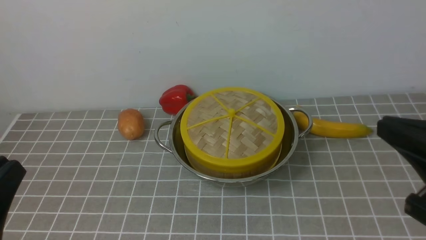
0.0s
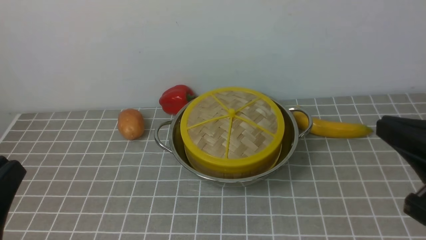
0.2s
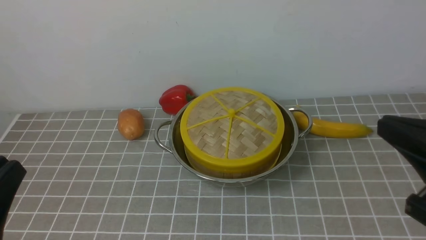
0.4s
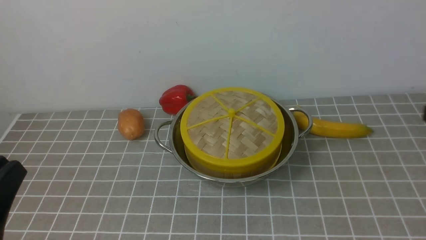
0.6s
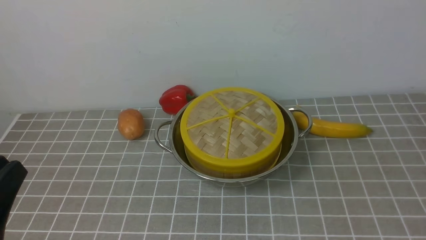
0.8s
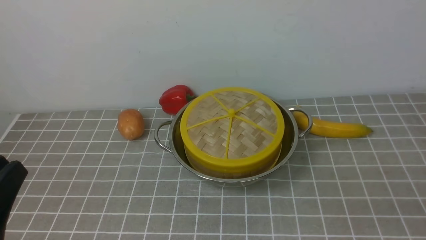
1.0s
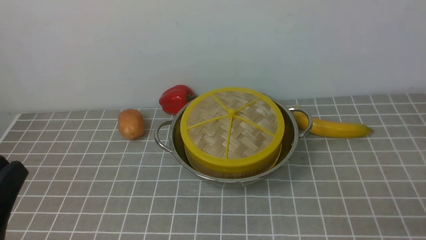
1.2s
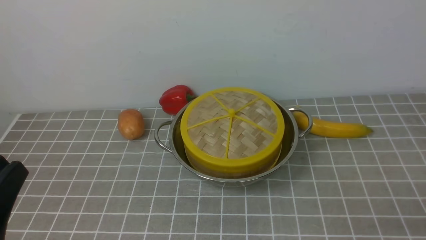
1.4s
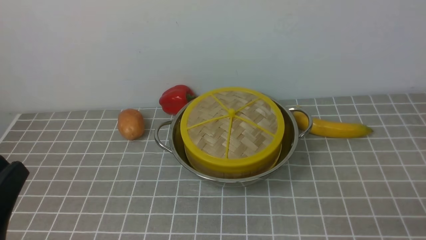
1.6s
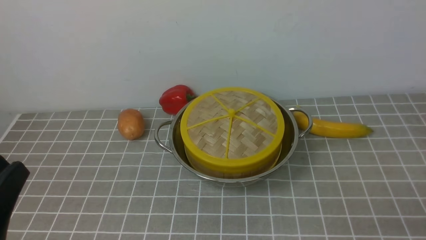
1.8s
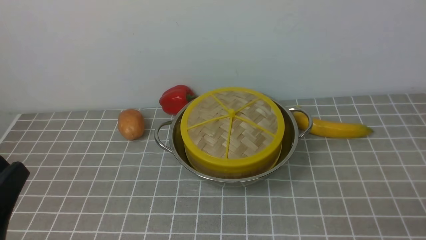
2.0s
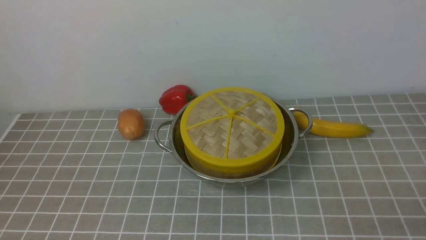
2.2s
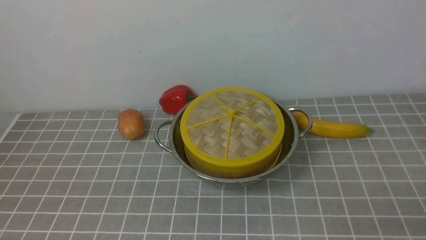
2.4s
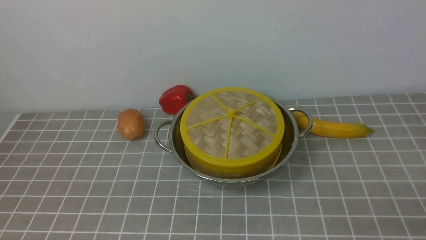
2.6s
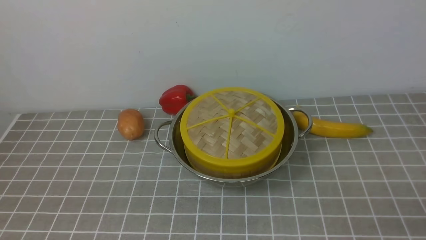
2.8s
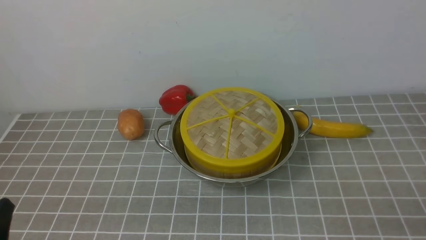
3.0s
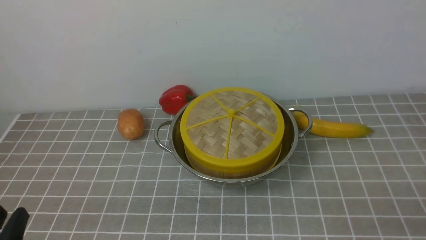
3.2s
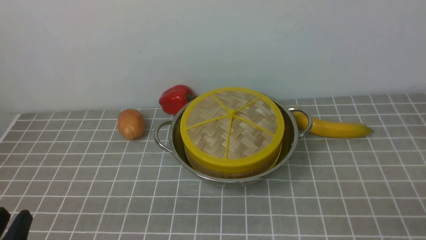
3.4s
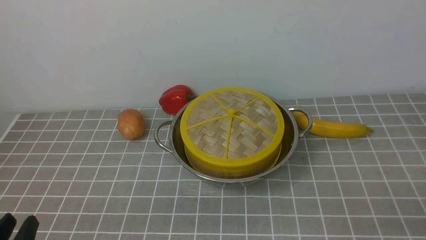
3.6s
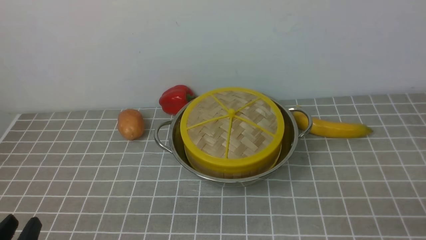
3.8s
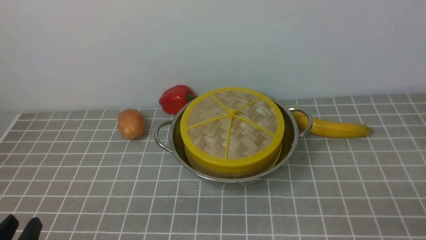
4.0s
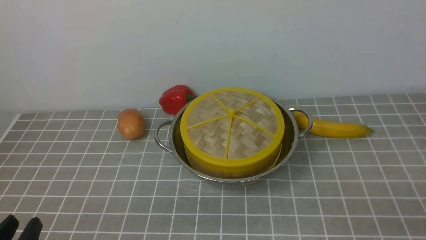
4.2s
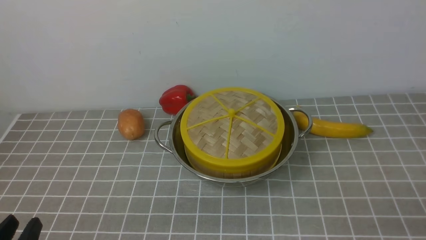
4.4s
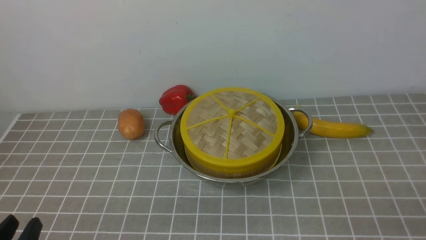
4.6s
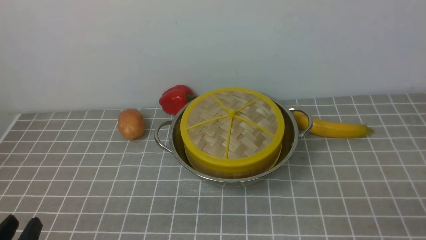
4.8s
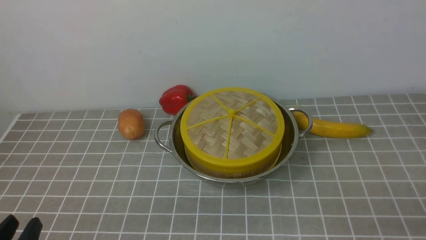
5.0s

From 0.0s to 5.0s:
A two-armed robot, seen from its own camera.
Task of the whole recording: place the steamer in the pot on the grey tablecloth, and put the lid on the steamer.
From 0.0s to 1.6s: The right gripper goes some 15 cm downward, to the right and backward.
From 1.6s to 3.4s: The left gripper travels downward by roughly 10 cm.

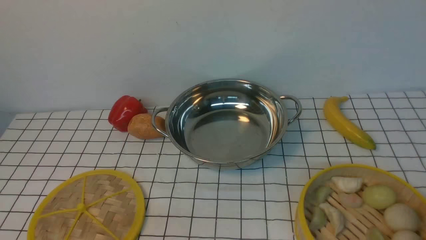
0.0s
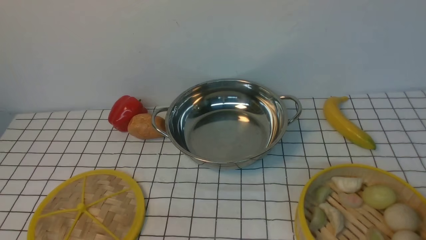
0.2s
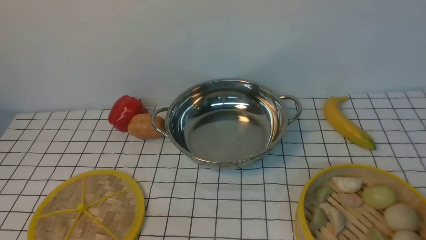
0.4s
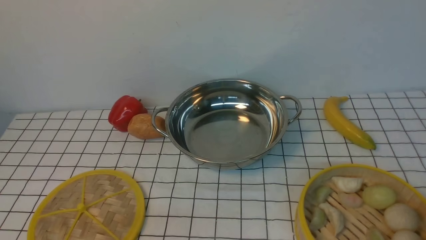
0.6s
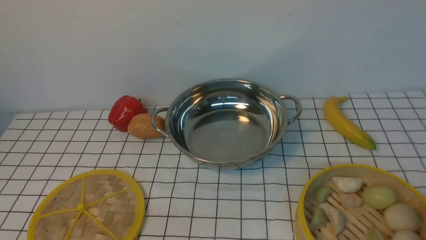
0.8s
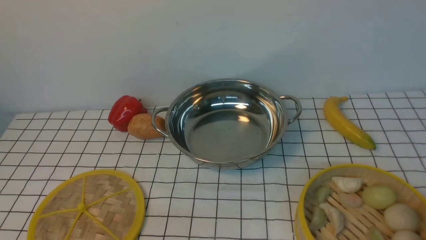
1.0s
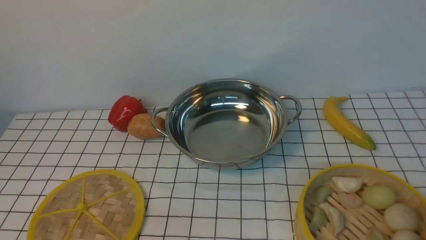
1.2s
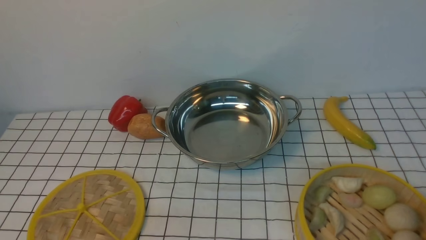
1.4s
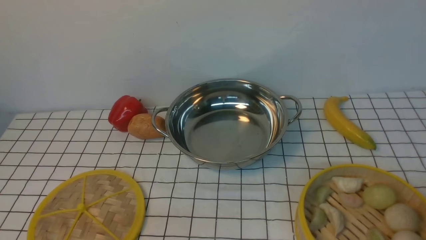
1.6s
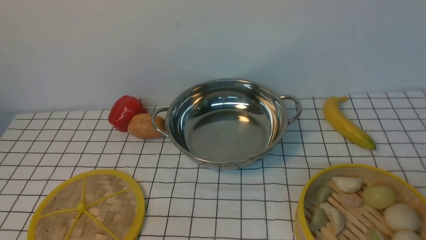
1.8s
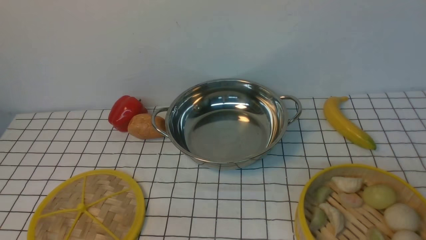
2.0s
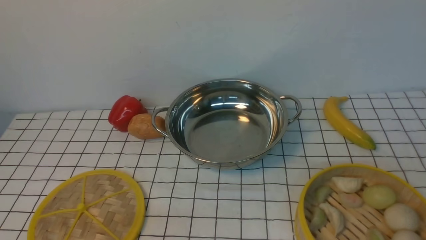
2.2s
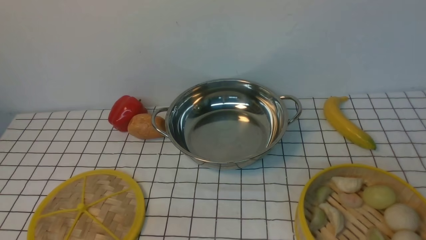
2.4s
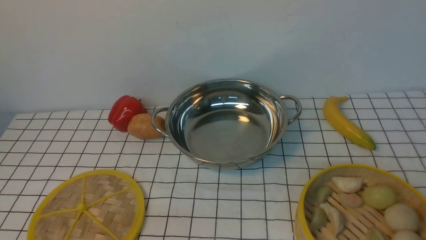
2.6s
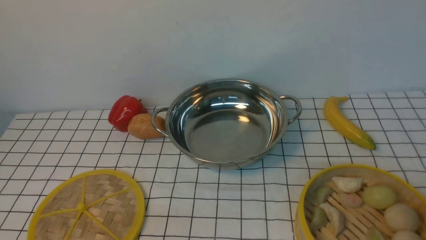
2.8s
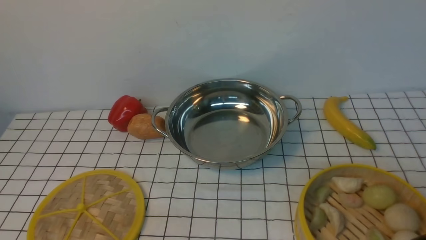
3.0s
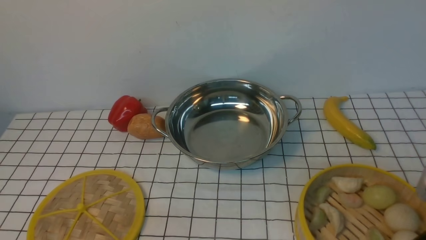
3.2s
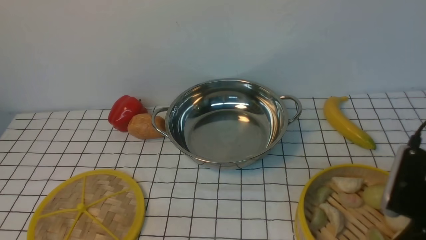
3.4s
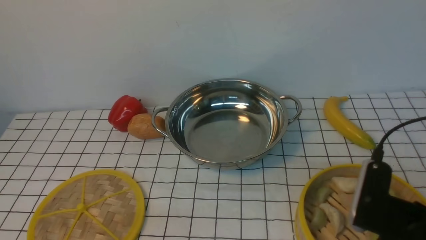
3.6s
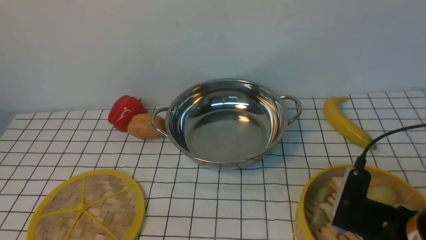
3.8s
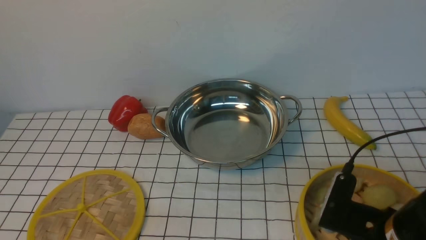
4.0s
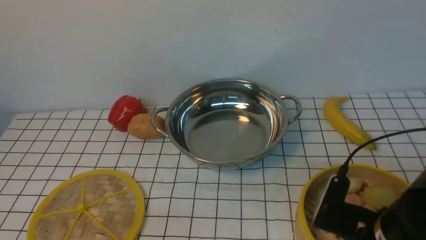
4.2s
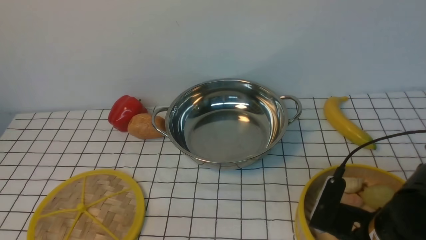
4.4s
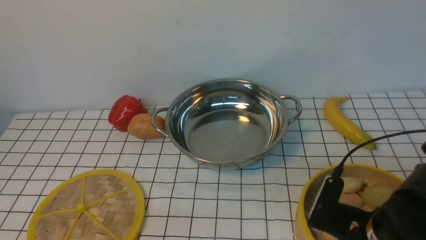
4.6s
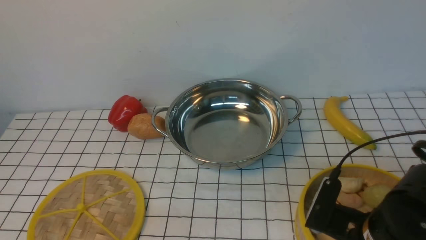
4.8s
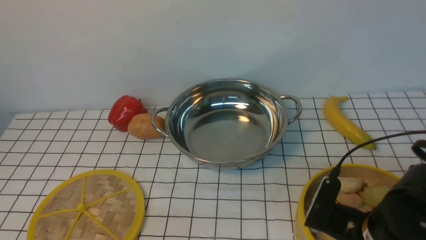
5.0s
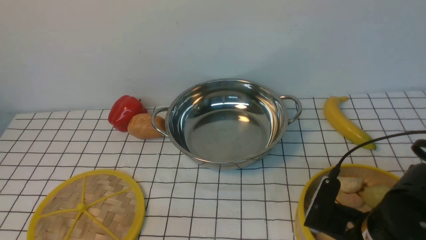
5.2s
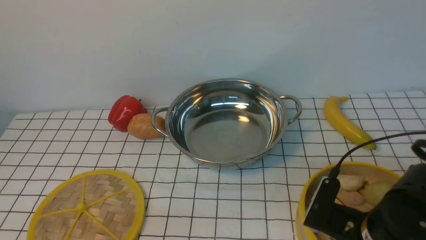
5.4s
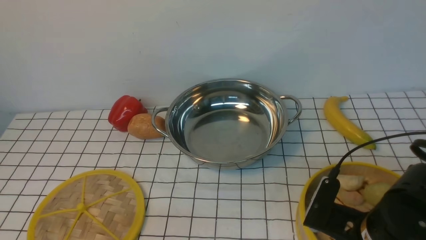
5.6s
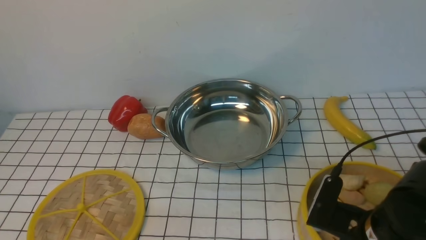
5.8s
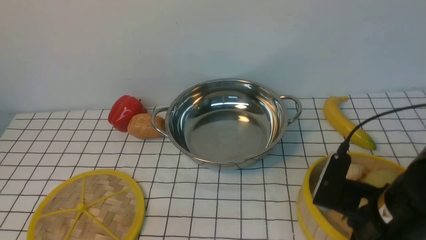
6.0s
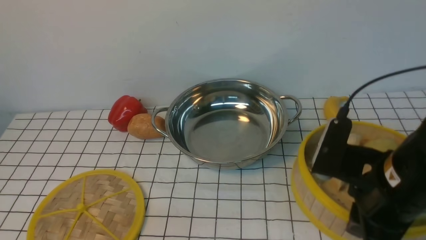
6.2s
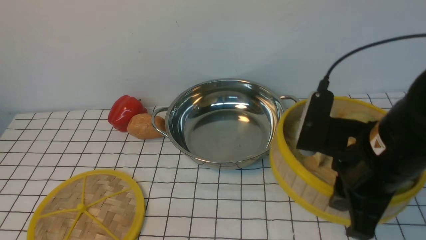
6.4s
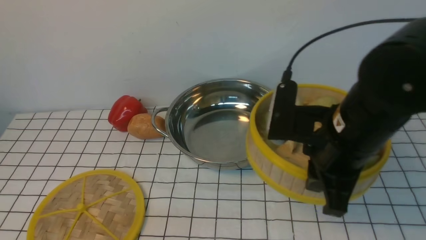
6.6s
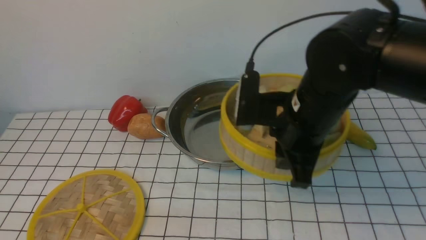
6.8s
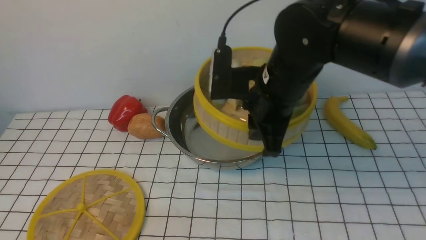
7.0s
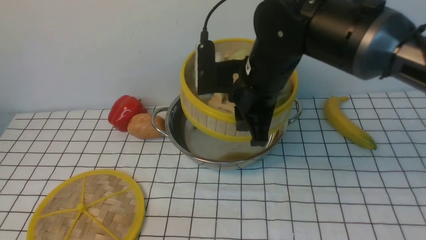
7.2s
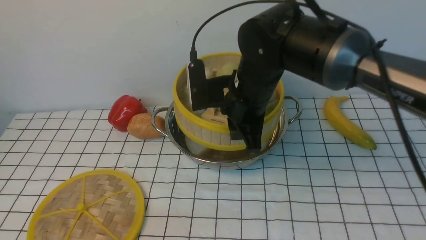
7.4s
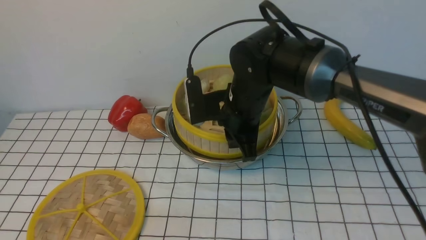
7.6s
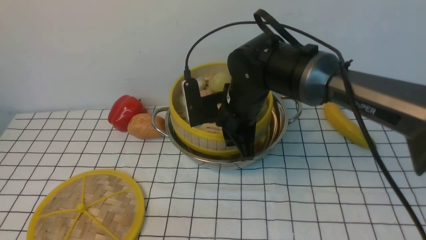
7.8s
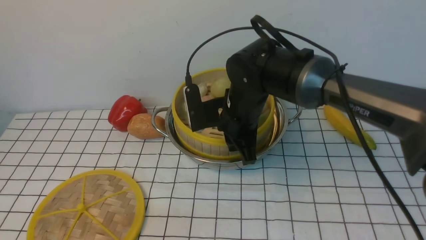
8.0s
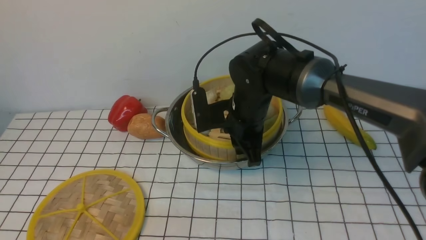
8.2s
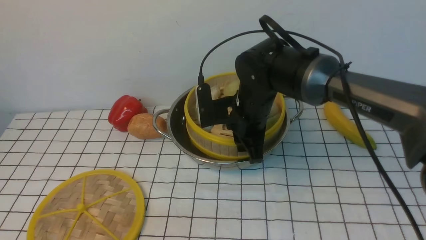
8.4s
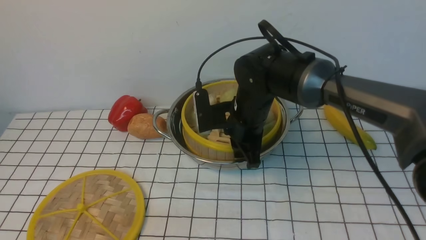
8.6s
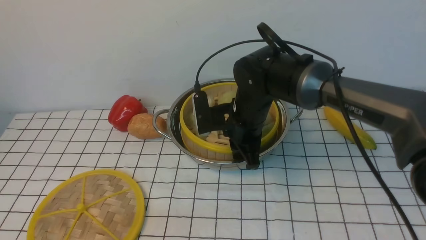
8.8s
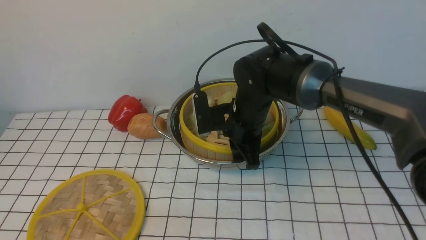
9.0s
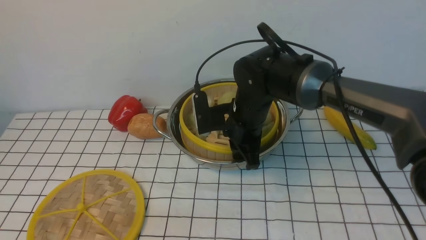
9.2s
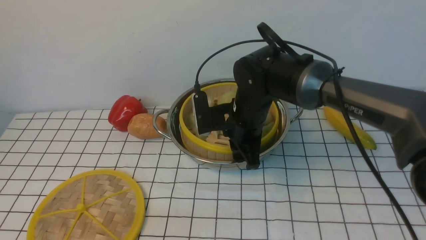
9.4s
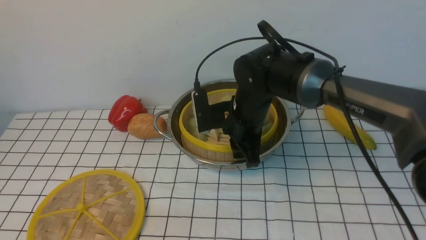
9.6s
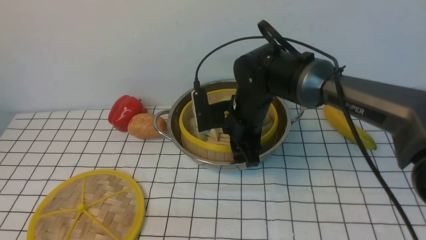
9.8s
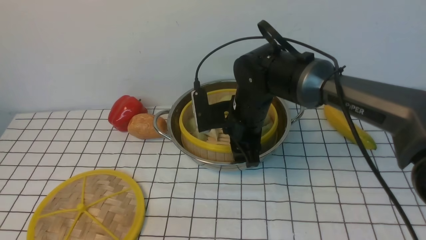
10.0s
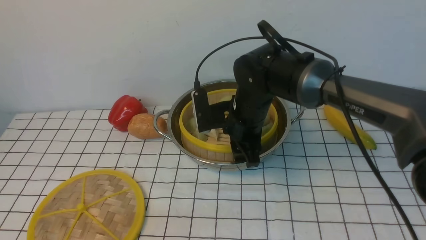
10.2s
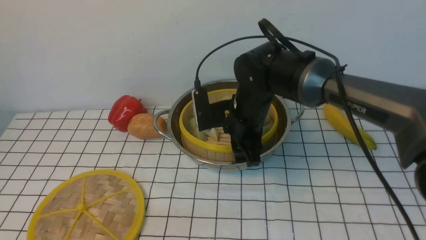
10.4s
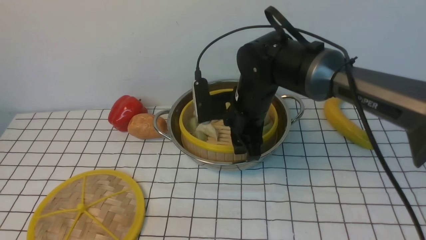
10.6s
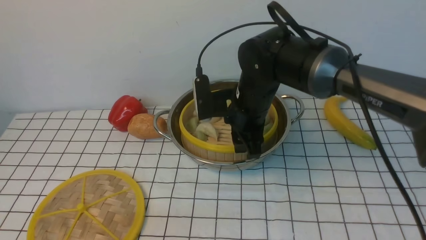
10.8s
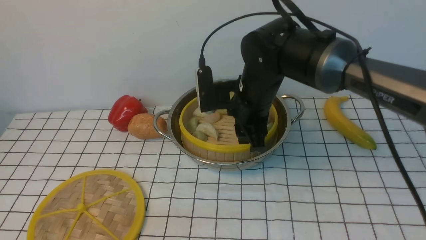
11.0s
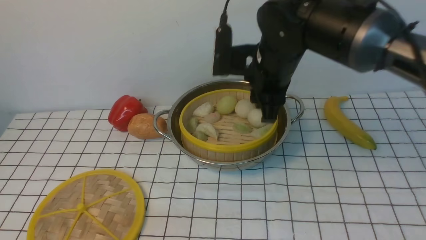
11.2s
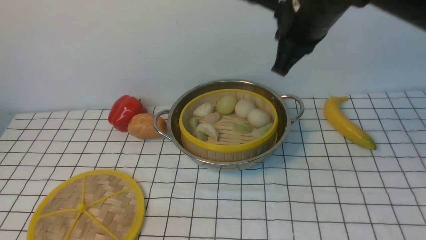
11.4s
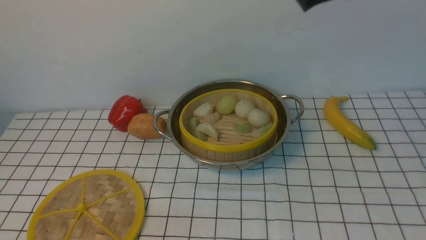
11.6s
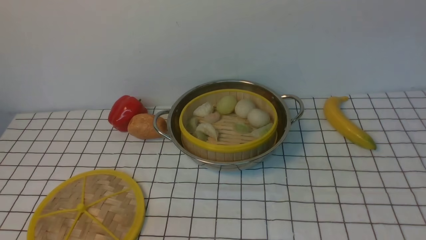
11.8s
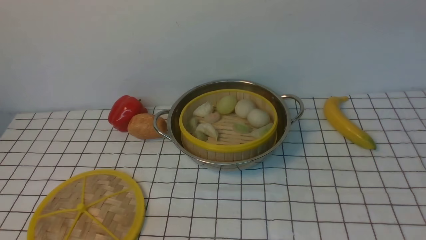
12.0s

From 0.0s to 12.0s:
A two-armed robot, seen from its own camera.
Task of the whole recording: place the steamer in the pot on the white tablecloth, and put the lid on the steamer.
Step, from 0.0s to 6.0s: use the right arm to lift the steamer closest to it.
Step, from 6.2s to 11.0s: use the right arm to put the steamer into the iron steamer pot in the middle.
From 3.0s to 4.4s: The right gripper shifts about 15 cm downward, to the left and forward.
From 4.4s to 6.0s: The right gripper moves some 5 cm, and closes.
From 6.0s to 7.6s: The right gripper is displaced forward and to the left by roughly 25 cm.
From 7.6s to 9.0s: The grippers stay close to where they were, moving slightly.
From 9.0s to 10.4s: The right gripper opens its fingers.
From 10.4s to 12.0s: The right gripper goes some 35 cm upward, to the right and backward, and closes its fingers.
